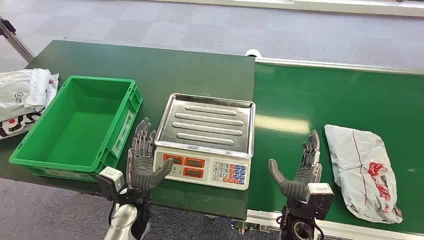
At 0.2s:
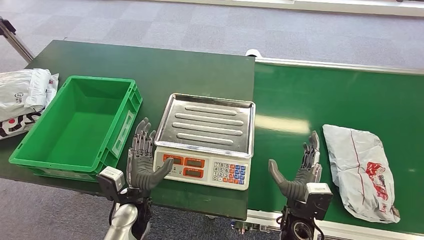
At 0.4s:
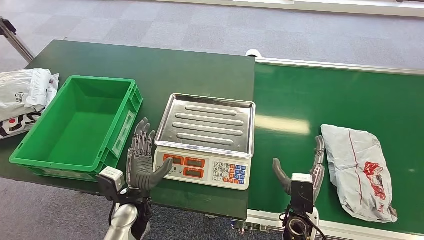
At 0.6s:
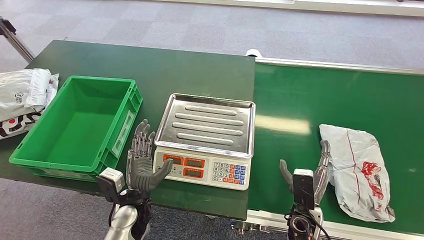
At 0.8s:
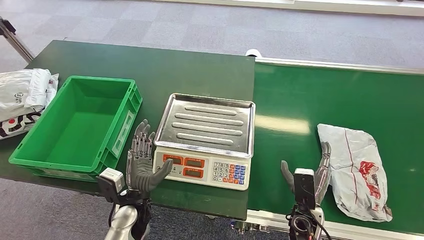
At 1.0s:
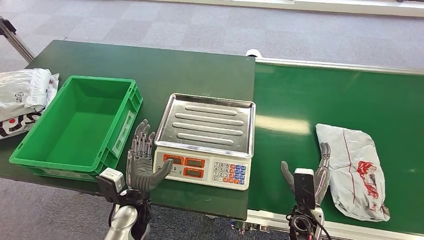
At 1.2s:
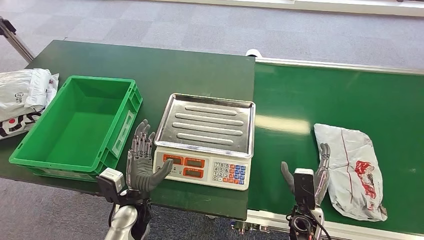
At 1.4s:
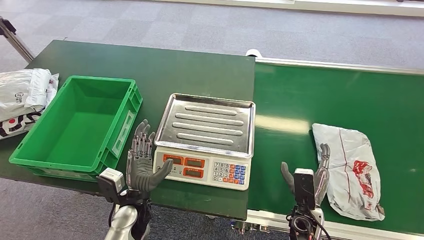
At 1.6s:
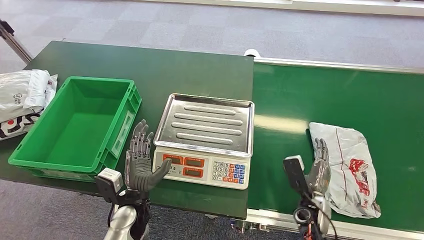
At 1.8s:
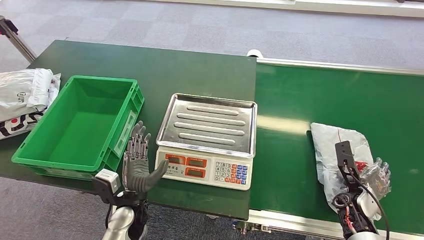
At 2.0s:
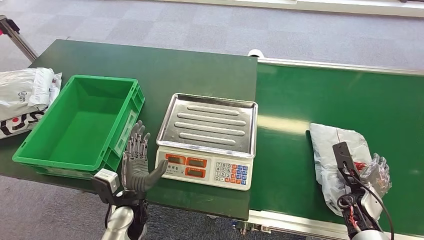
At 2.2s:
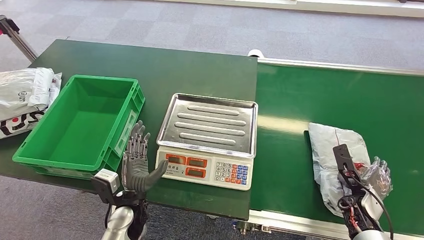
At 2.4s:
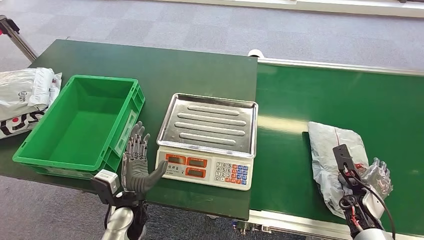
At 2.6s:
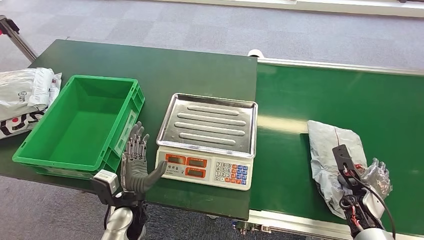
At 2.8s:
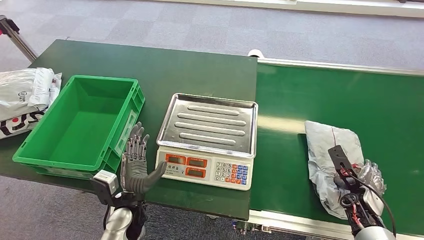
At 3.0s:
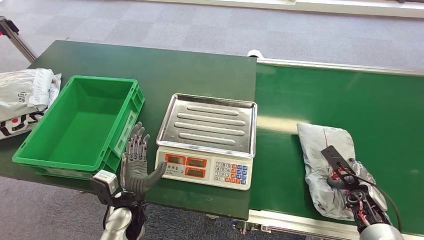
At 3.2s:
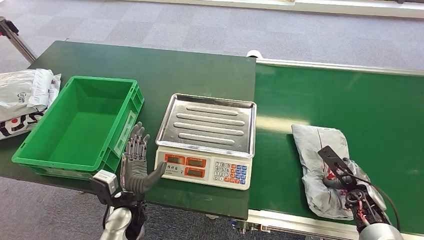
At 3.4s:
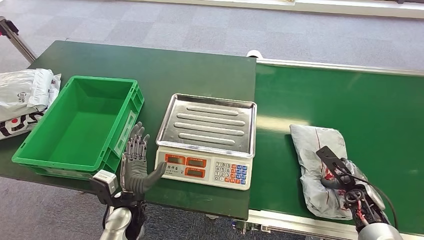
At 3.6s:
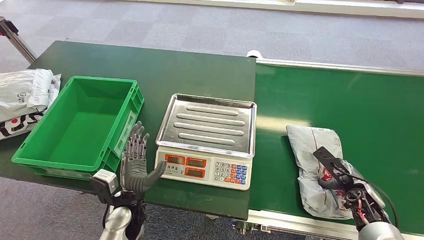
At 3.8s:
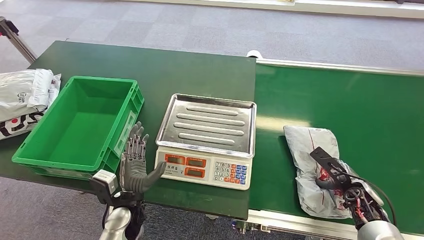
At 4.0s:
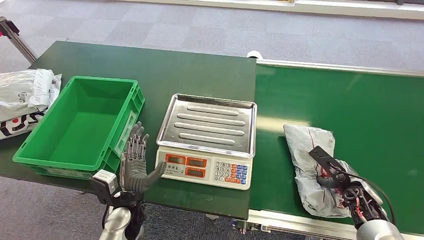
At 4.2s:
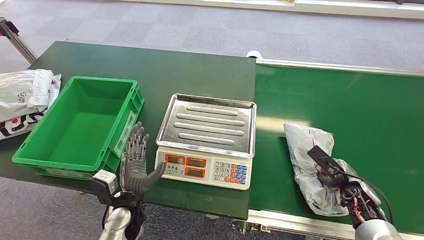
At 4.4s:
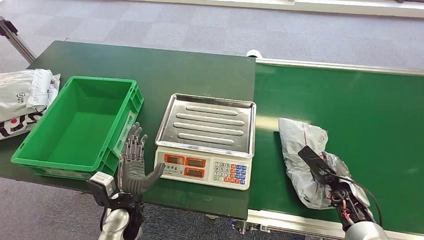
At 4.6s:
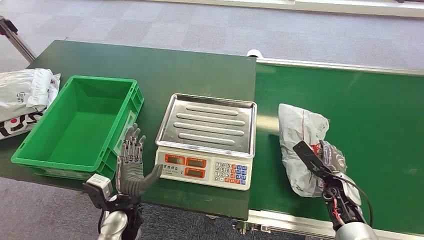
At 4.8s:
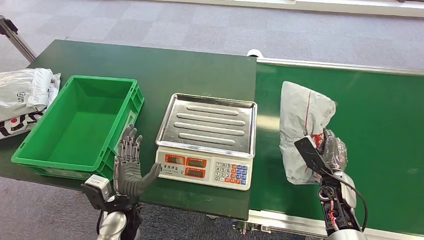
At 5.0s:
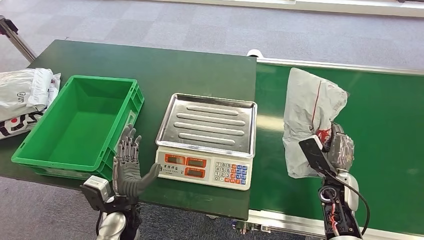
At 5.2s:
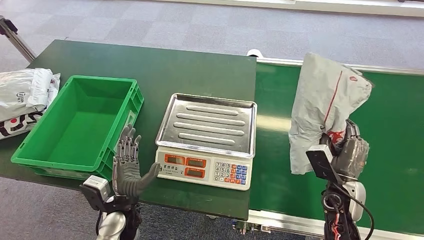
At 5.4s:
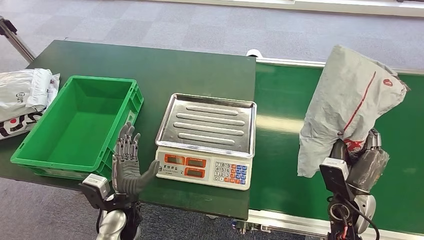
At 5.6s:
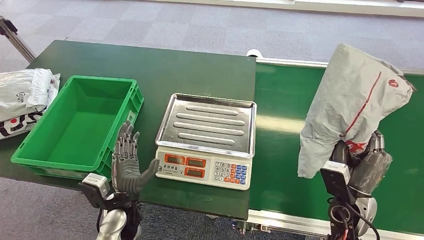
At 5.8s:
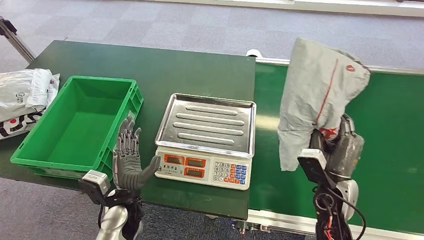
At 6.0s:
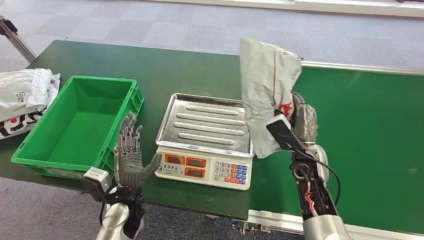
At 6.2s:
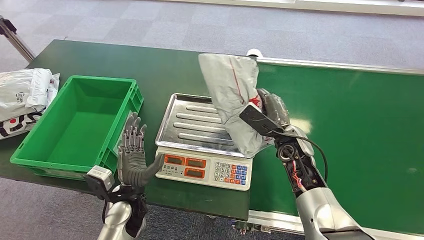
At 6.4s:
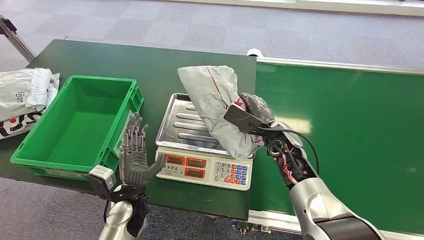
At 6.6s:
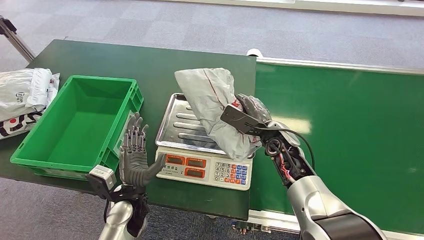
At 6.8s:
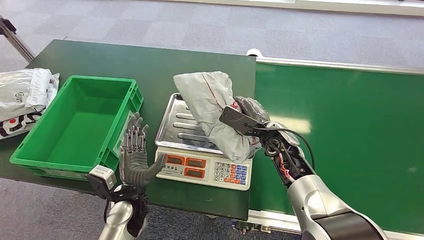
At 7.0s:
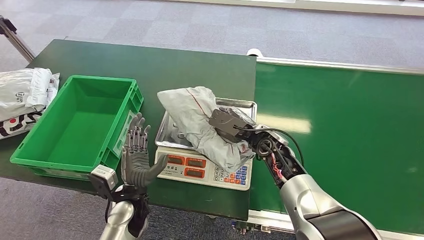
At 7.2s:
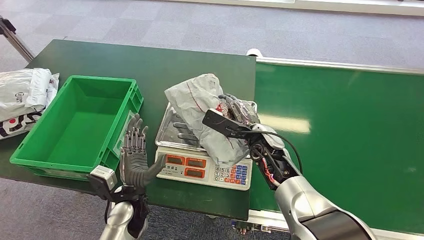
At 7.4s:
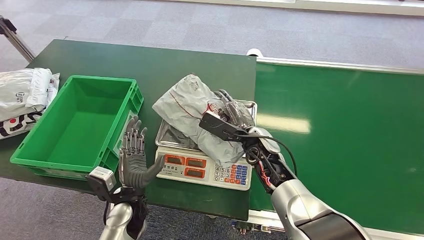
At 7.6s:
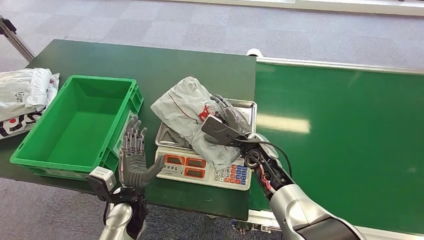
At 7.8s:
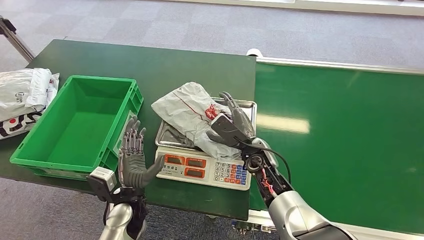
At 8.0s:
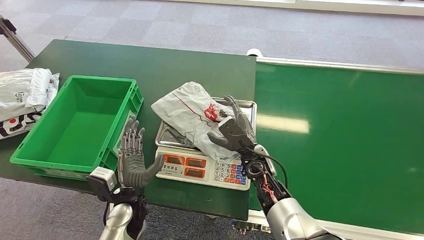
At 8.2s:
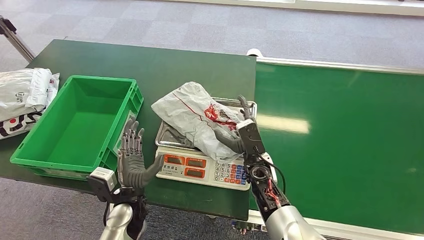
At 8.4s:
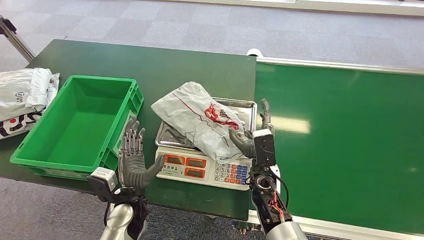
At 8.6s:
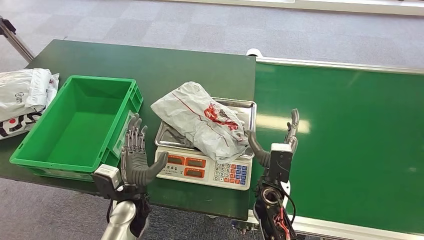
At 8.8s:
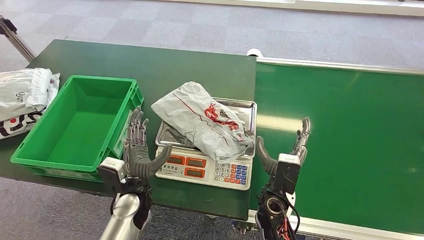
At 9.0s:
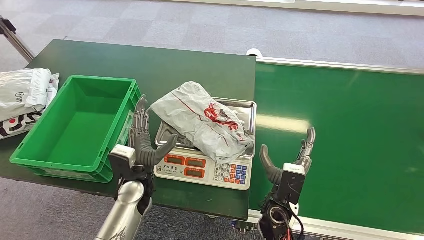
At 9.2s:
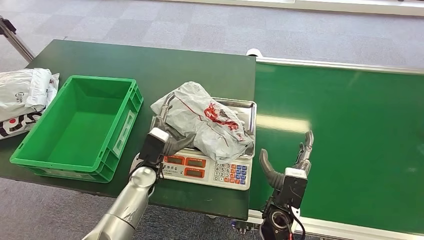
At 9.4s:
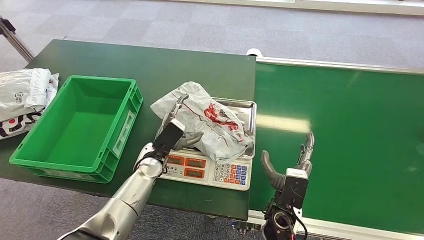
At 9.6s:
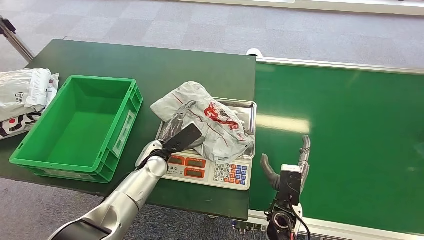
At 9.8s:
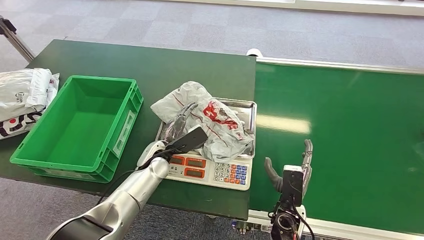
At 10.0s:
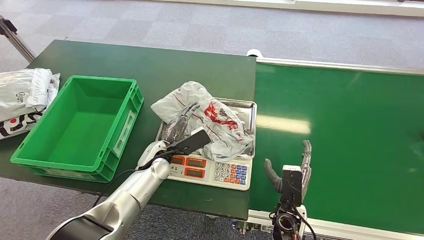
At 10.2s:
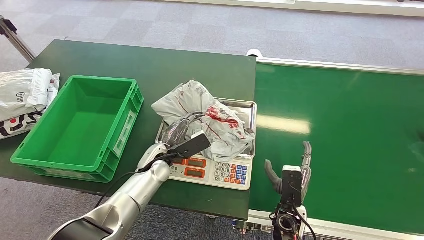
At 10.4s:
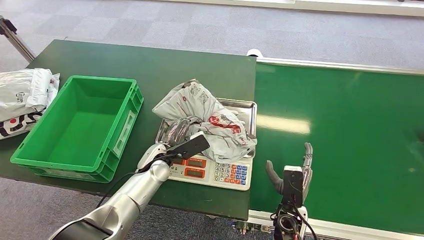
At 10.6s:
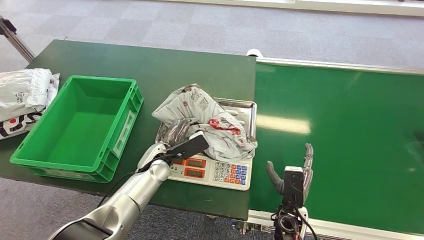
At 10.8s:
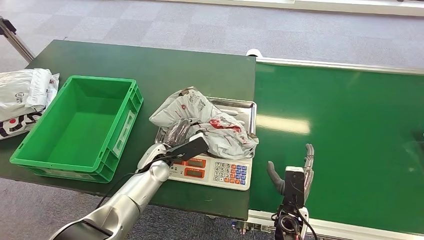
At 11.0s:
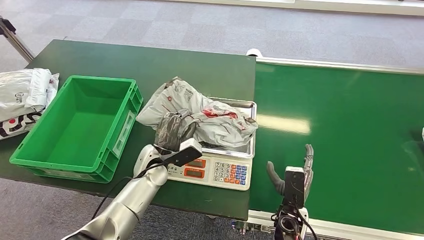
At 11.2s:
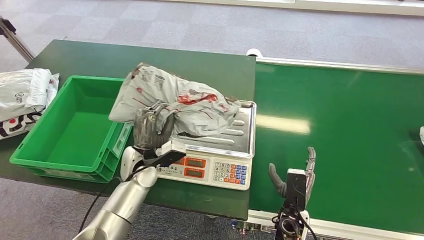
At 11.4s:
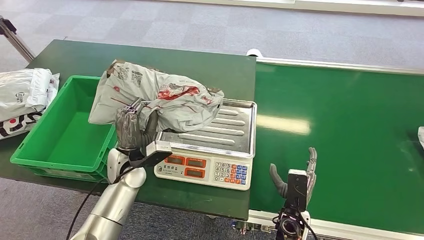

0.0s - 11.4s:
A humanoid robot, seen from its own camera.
Step, 0.0s - 4.8s: Pick up the package from the conveyor belt.
Step, 5.0s - 9.2s: Place the package onto the inbound machine.
Step, 9.4s - 11.2s: Pick up the package from the inbound machine.
1.4s - 2.8s: The right hand heads to the right, covering roughly 15 cm.
7.2s - 8.6s: The right hand travels backward and downward by approximately 10 cm.
8.6s - 10.0s: The right hand goes about 10 cm downward and to the right. Meanwhile the left hand shifts approximately 10 cm forward.
10.0s - 11.4s: The left hand moves to the left, about 5 cm.

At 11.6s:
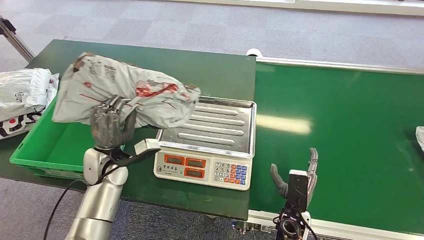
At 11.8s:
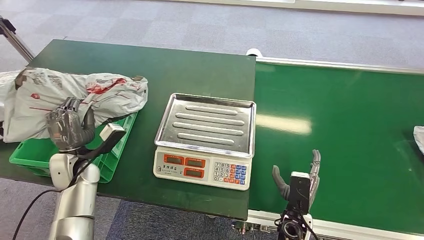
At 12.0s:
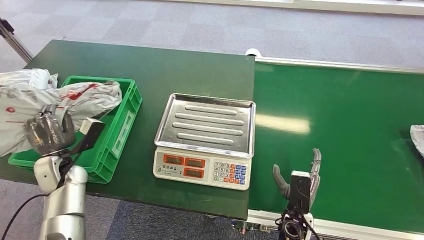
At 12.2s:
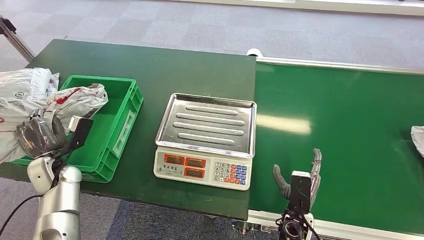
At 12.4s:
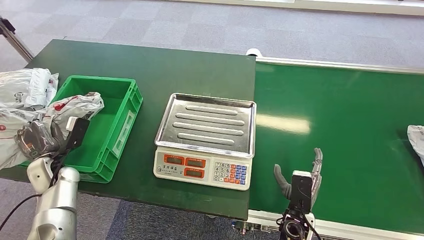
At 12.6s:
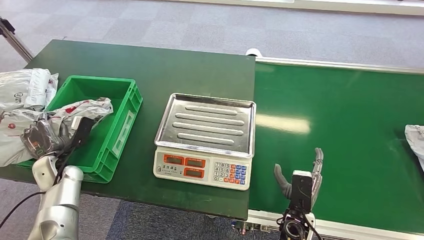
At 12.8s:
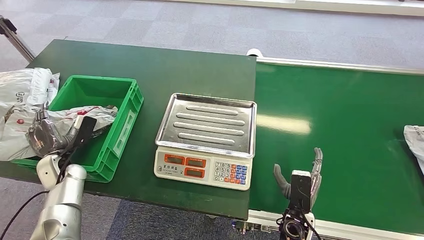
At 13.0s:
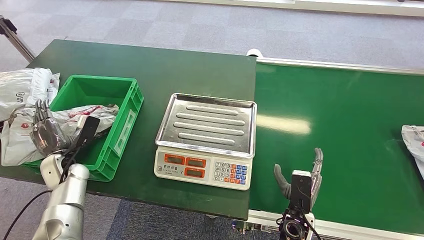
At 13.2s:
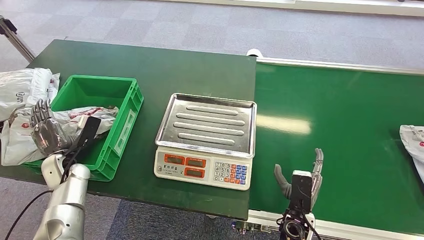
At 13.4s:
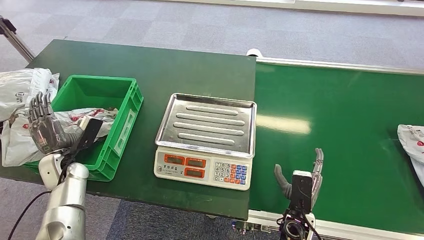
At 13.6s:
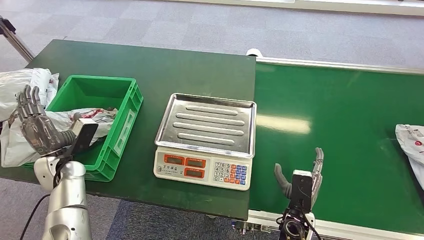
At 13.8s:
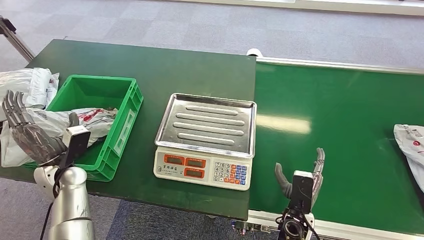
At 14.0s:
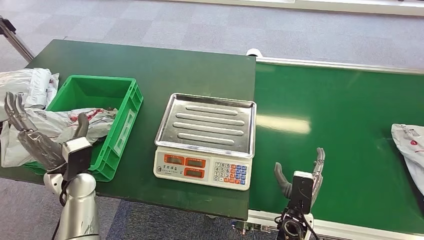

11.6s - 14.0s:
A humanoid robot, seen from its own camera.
Step, 11.6s - 14.0s: Place the package into the parcel locker.
12.8s - 14.0s: The left hand is displaced to the right and upward by roughly 10 cm.

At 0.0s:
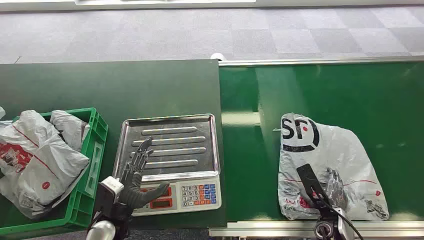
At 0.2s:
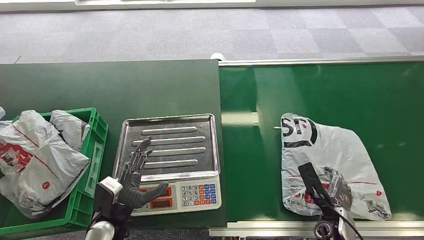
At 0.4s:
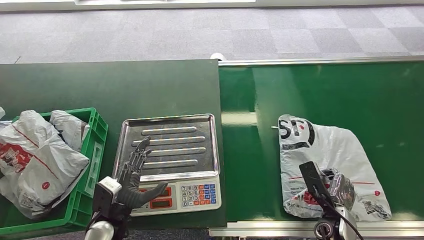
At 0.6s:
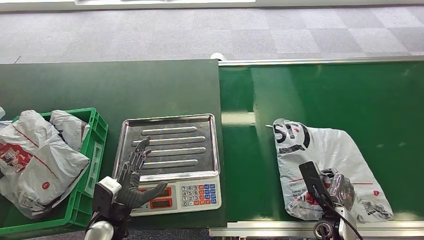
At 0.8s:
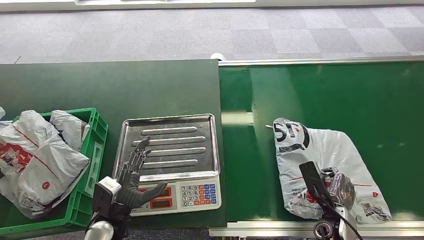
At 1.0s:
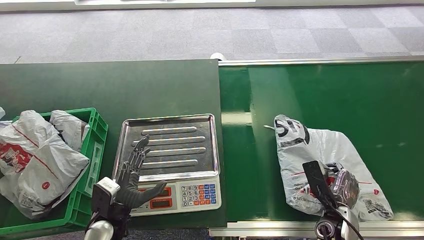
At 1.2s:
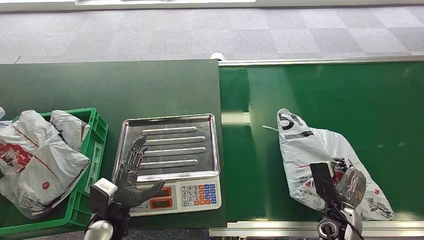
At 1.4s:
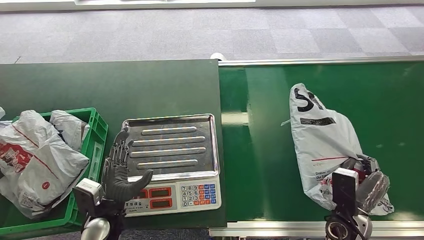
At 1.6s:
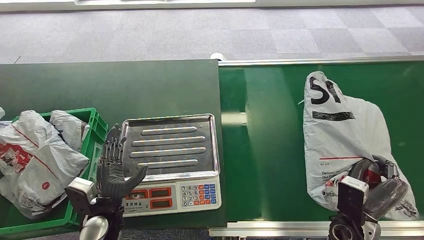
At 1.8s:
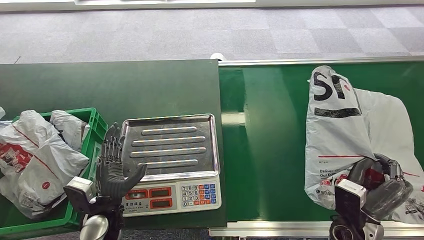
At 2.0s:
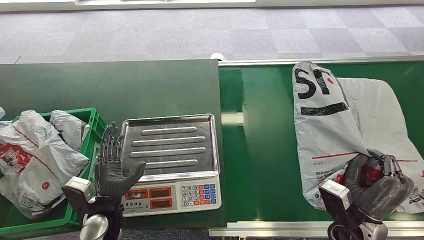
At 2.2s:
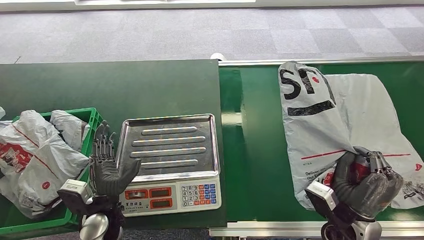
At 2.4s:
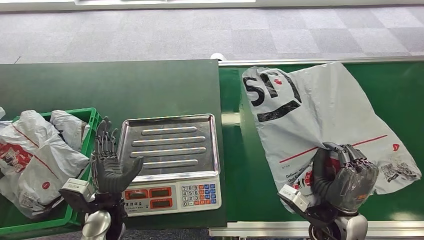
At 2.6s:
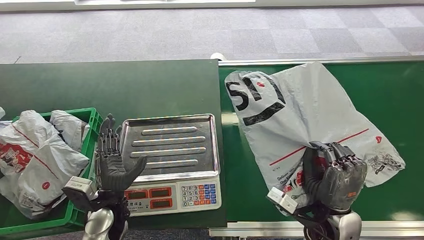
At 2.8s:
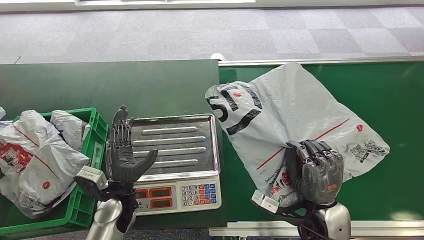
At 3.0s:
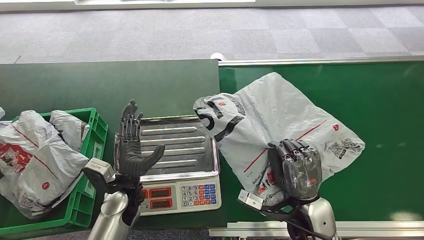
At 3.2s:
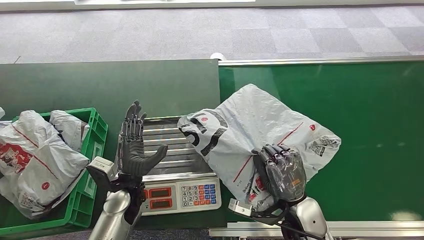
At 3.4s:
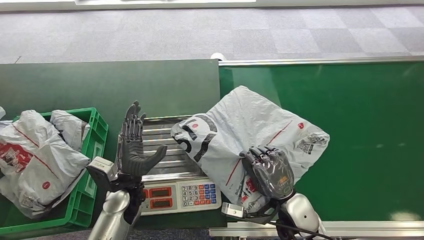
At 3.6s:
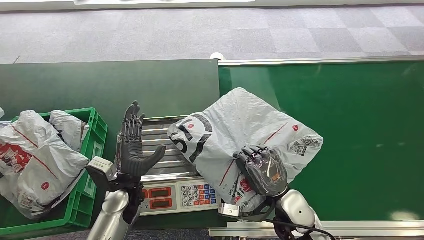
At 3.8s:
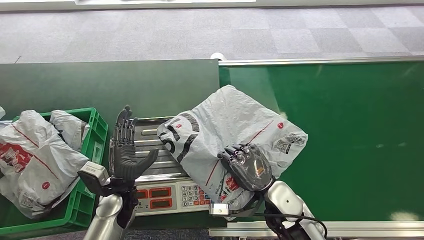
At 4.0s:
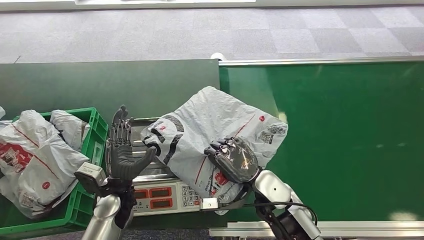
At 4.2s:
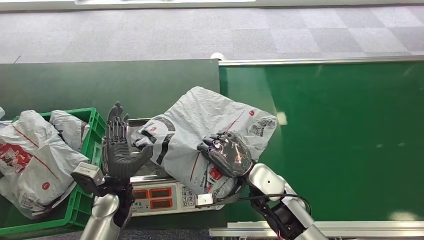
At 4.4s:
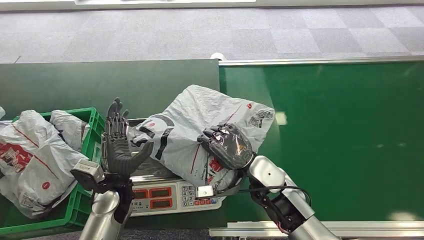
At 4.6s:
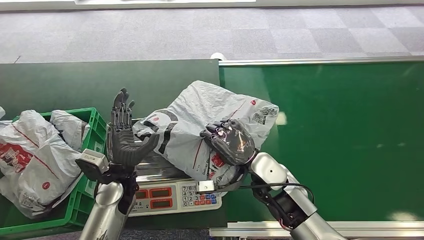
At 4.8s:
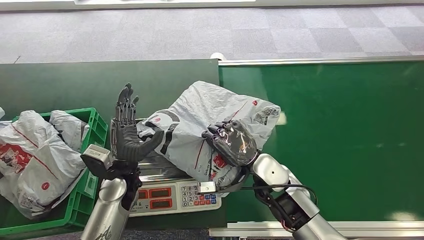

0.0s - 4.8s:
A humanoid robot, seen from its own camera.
Step, 0.0s - 1.8s: Pick up the package from the conveyor belt.
